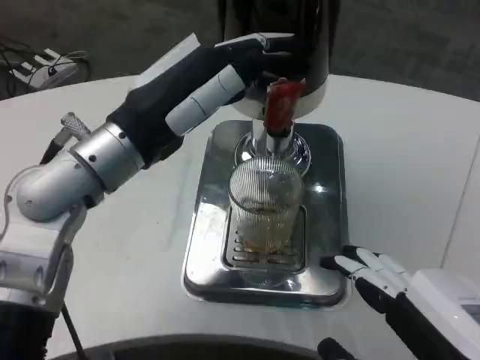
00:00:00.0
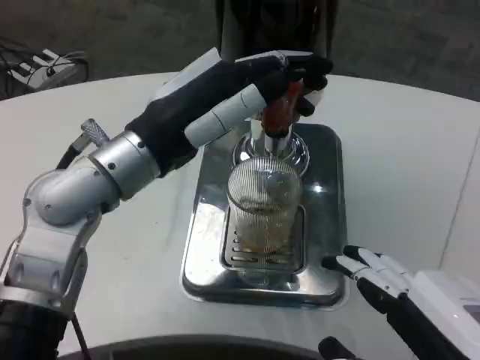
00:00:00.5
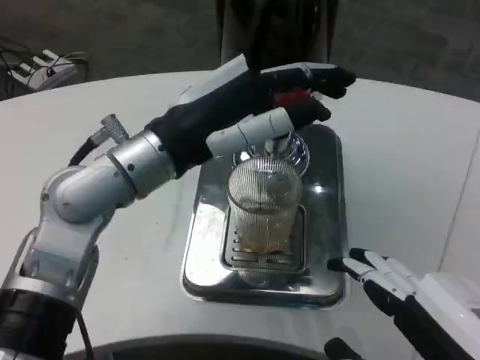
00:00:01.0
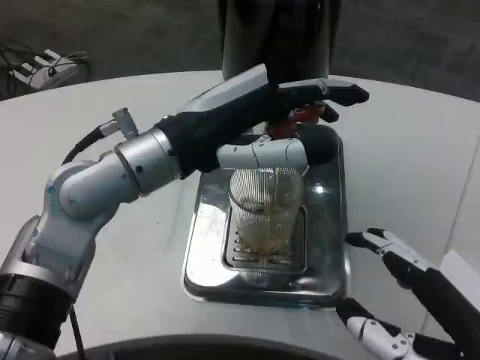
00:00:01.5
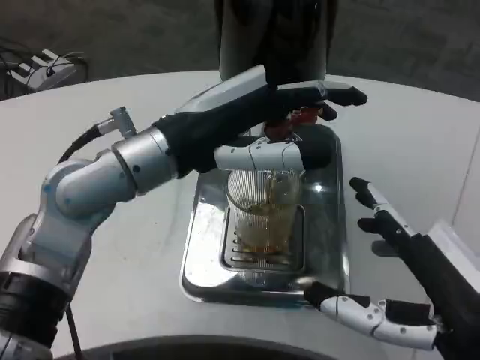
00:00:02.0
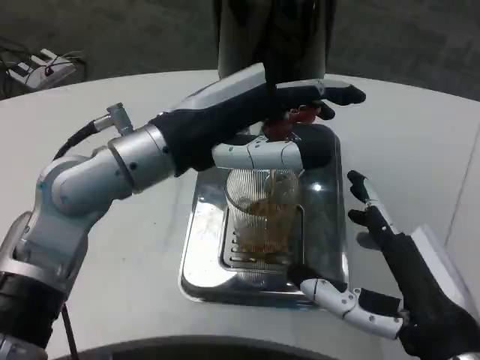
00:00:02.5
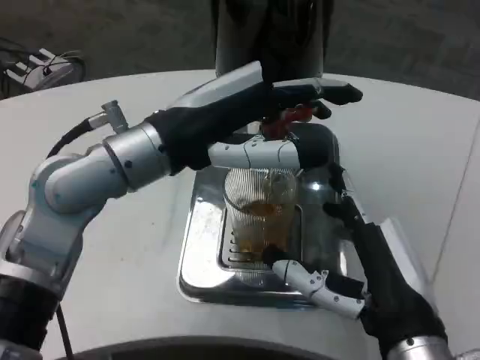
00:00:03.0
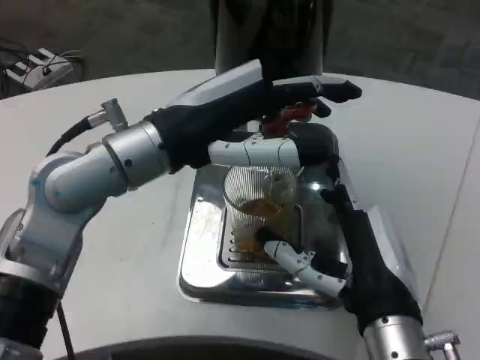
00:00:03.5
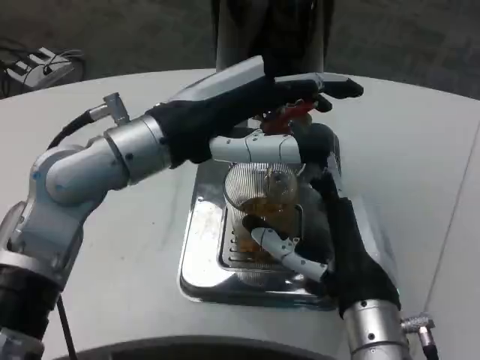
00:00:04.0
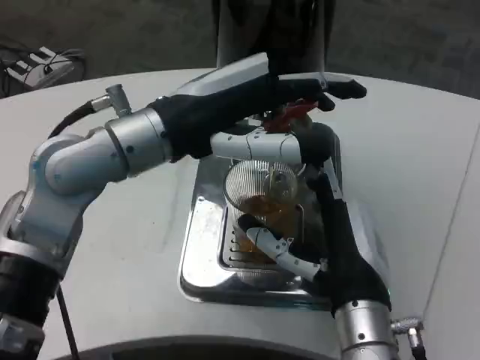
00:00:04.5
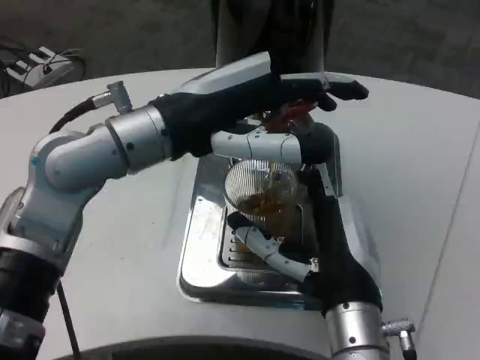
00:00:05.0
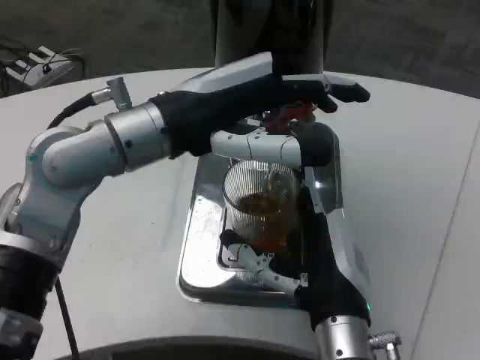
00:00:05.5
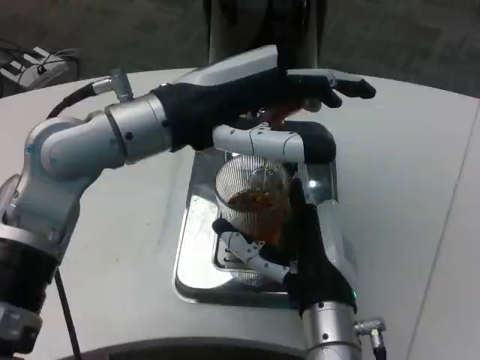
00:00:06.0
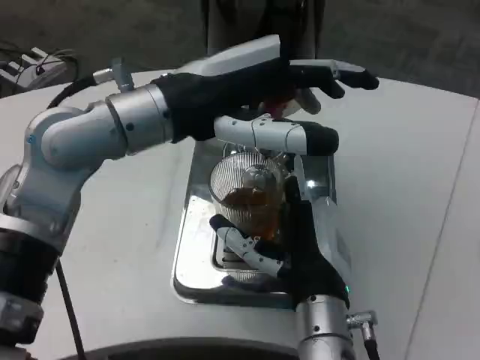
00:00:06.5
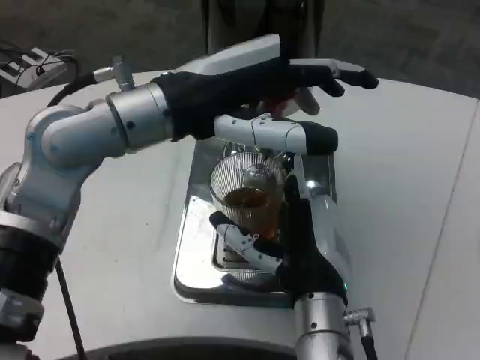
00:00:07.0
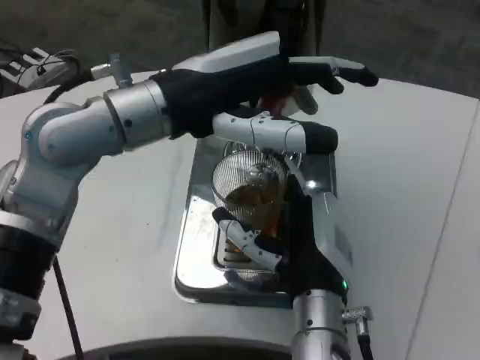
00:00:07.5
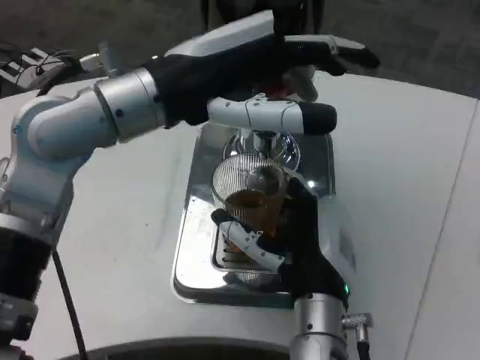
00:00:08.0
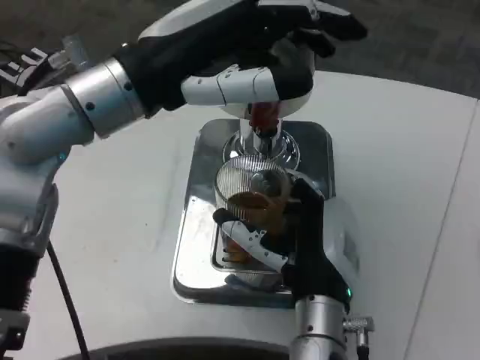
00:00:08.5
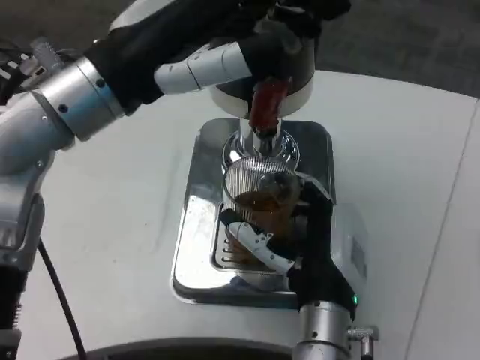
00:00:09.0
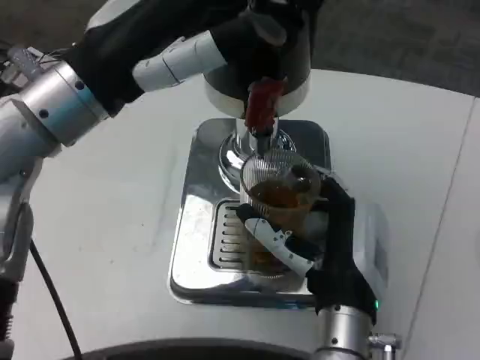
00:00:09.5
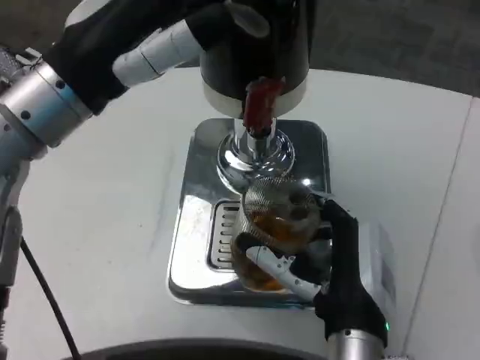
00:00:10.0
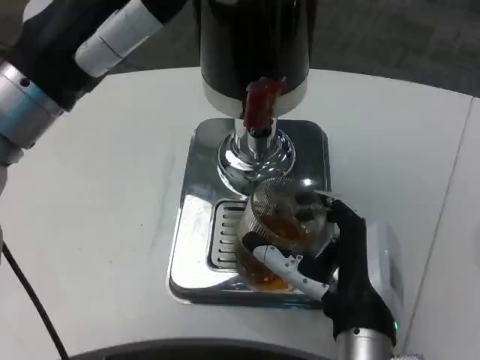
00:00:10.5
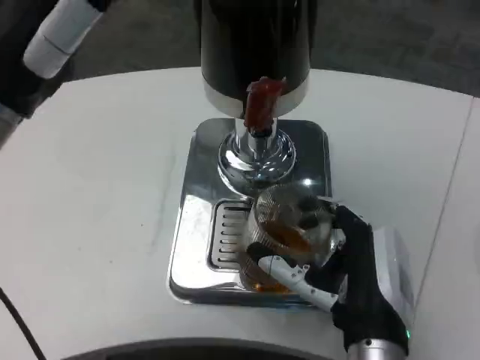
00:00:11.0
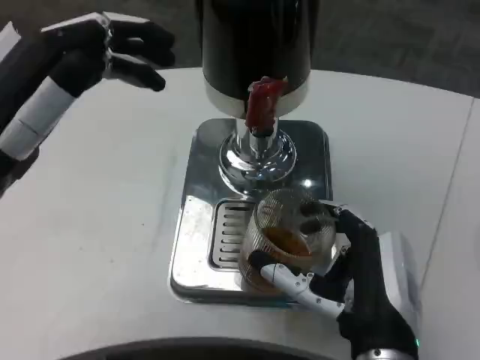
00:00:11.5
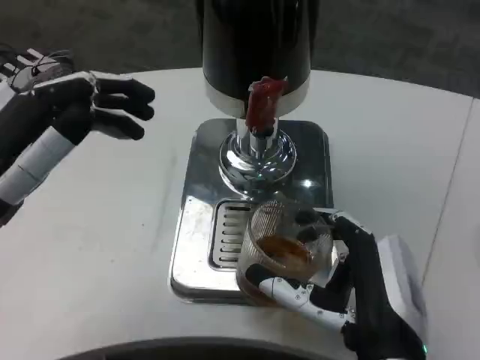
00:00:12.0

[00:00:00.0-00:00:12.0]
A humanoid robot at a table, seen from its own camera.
Task of the whole recording: Grasp the cup under the faucet to collect the drink, then remove the cup.
00:00:02.0 to 00:00:04.0: The right hand goes some 15 cm forward, to the left and downward.
00:00:08.0 to 00:00:10.0: The left hand shifts by about 5 cm.
00:00:10.0 to 00:00:12.0: The left hand shifts some 10 cm downward, backward and to the left, while the right hand ends up about 5 cm from where it was.

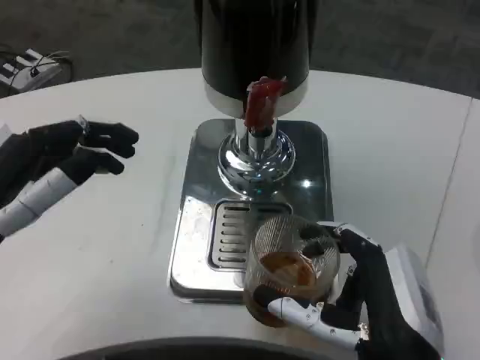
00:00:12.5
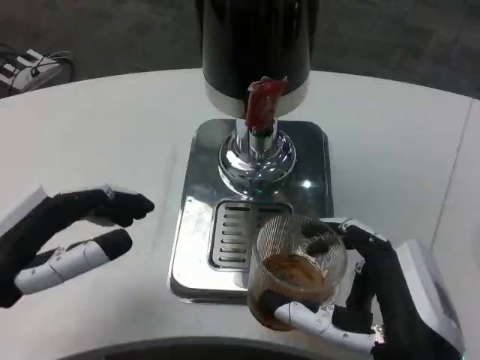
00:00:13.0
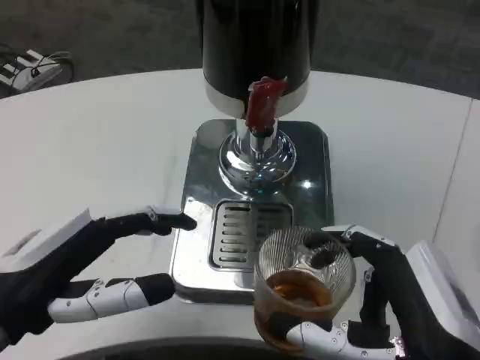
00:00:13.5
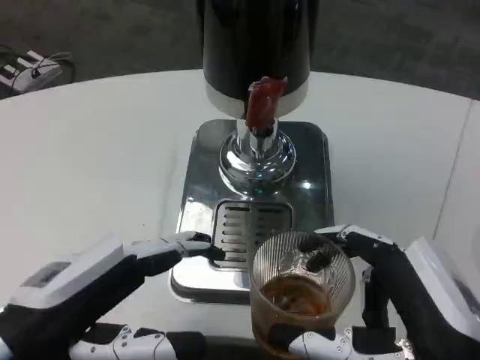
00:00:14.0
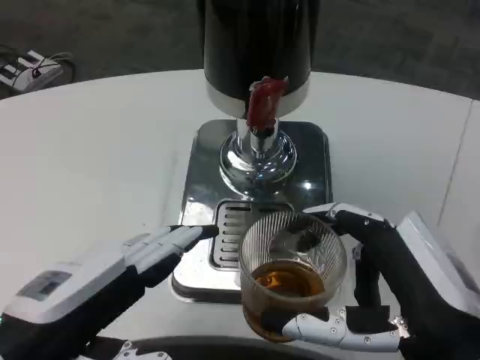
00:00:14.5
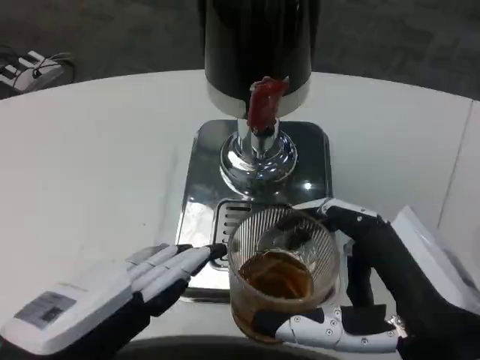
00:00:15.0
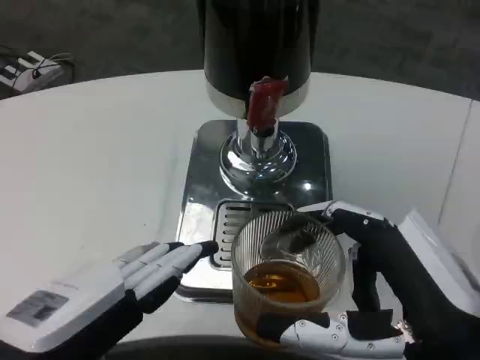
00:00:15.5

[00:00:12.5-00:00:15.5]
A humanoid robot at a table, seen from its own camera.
Task of the whole recording: Grasp the cup under the faucet to collect the drink, then remove the cup.
00:00:12.5 to 00:00:14.0: The right hand shifts by roughly 5 cm, while the left hand changes place by some 5 cm.

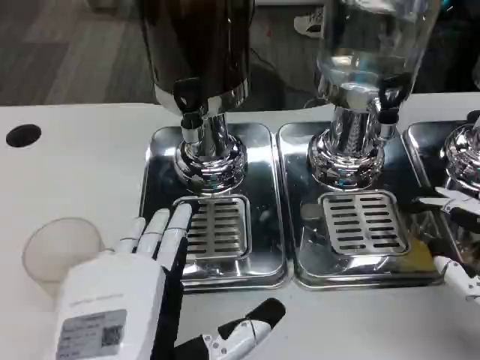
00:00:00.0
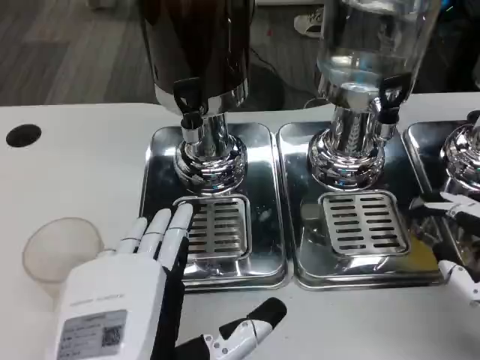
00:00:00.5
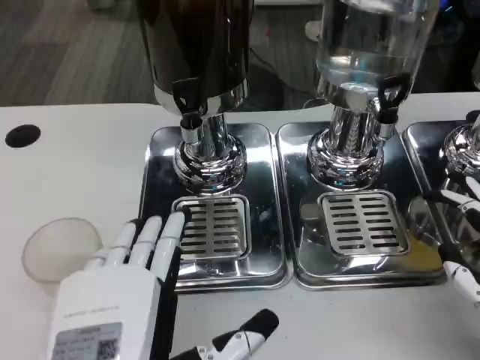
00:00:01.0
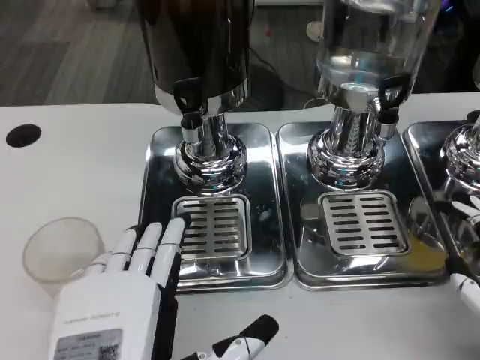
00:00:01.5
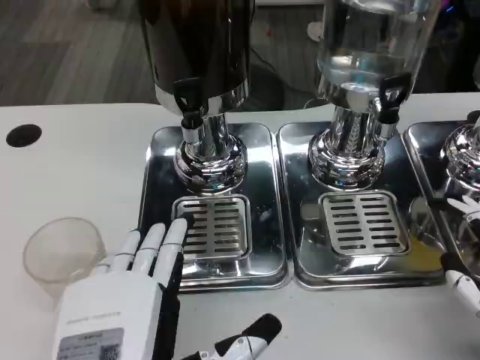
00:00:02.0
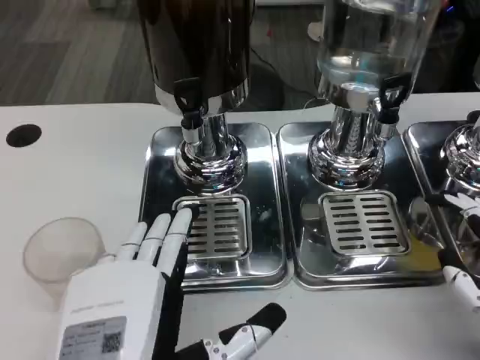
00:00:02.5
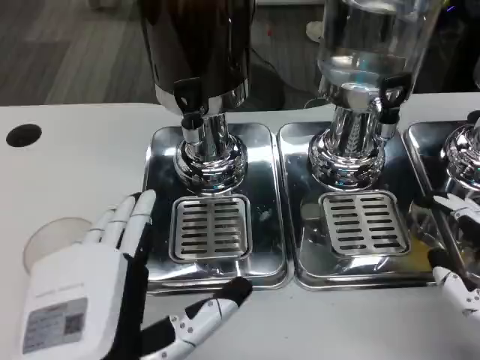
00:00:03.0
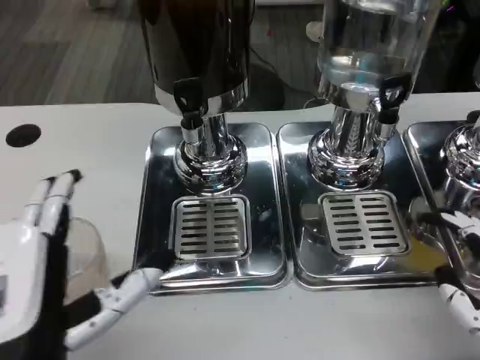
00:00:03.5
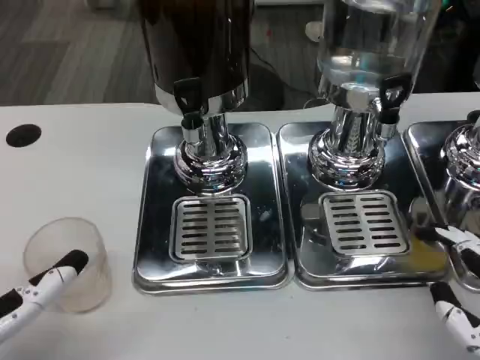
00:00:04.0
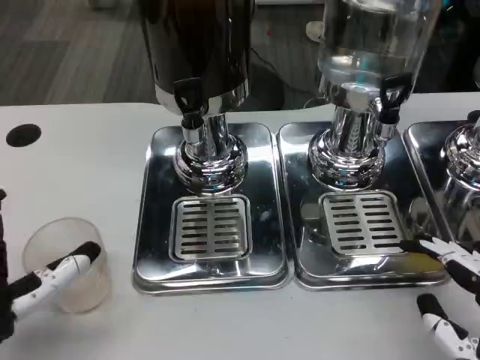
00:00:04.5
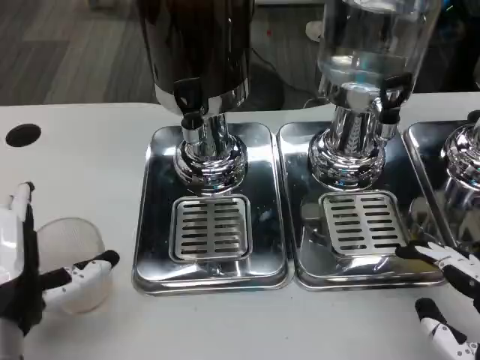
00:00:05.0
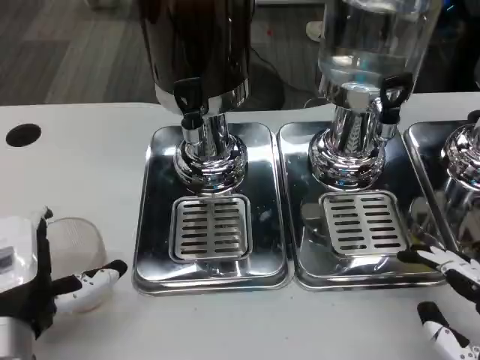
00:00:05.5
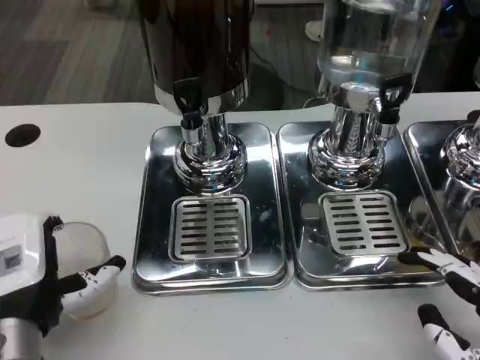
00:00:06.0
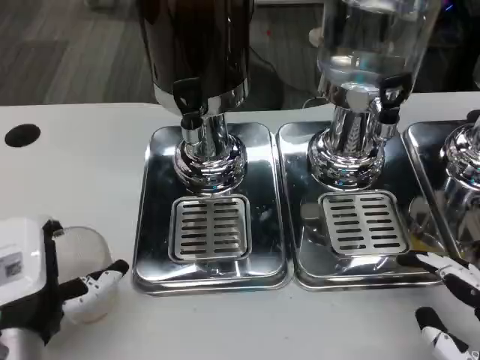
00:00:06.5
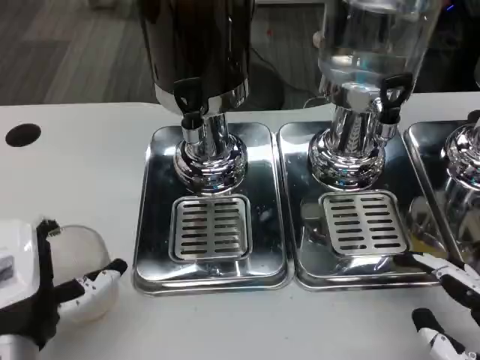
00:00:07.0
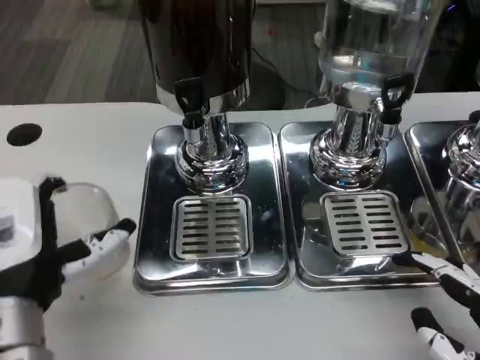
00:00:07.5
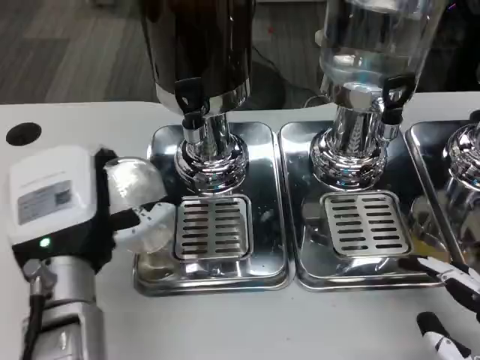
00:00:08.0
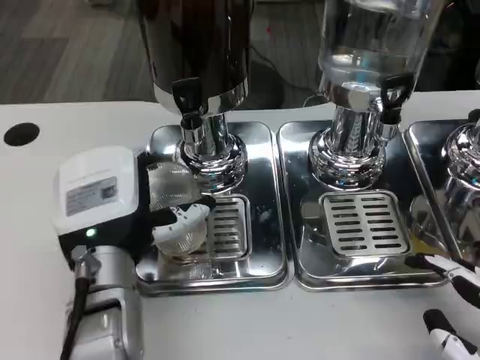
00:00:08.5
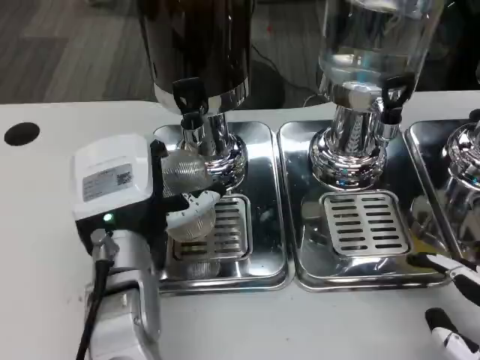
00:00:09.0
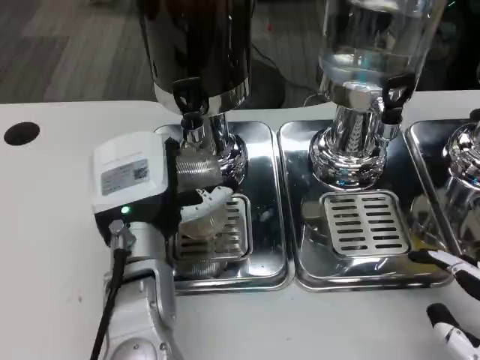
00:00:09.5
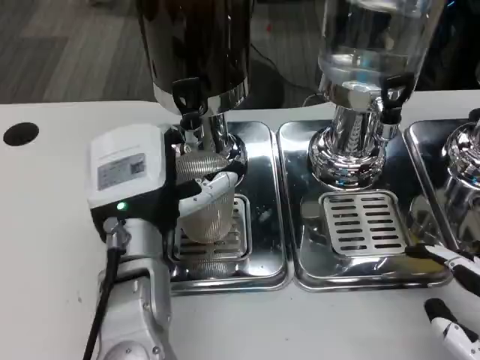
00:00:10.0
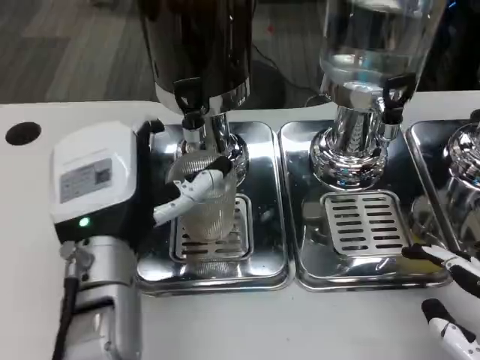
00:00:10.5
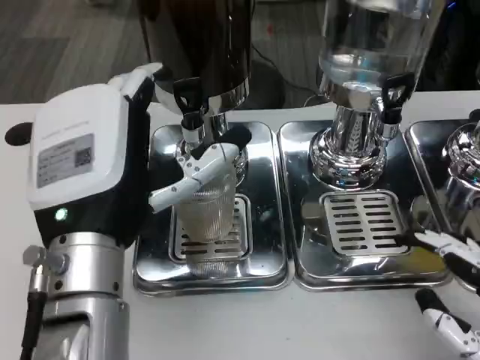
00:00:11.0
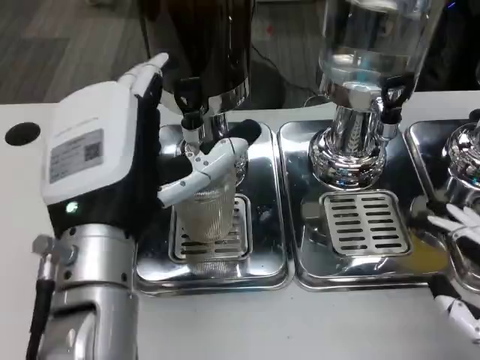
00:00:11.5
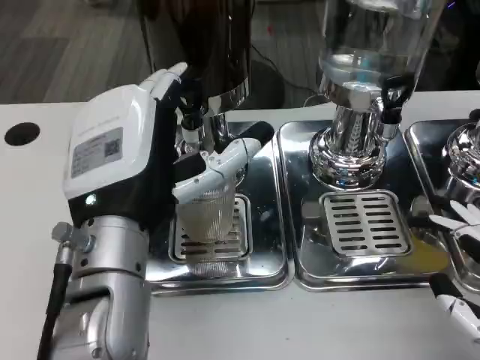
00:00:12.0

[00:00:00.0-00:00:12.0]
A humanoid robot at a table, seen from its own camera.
Task of the whole recording: Grasp the cup under the faucet to collect the drink, then remove the cup.
00:00:00.0 to 00:00:02.0: The hands make only small movements.
00:00:02.0 to 00:00:04.0: The left hand moves to the left and forward, about 10 cm.
00:00:04.0 to 00:00:06.0: The left hand ends up roughly 5 cm from where it was.
00:00:06.0 to 00:00:08.0: The left hand ends up roughly 5 cm from where it was.
00:00:08.0 to 00:00:10.0: The left hand shifts by approximately 5 cm.
00:00:10.0 to 00:00:12.0: The left hand goes roughly 5 cm upward.
